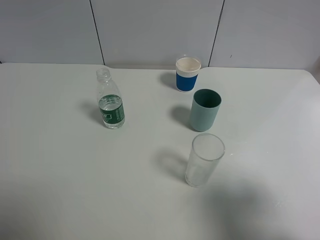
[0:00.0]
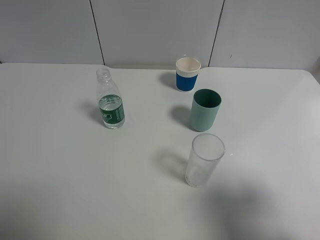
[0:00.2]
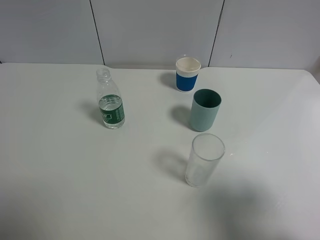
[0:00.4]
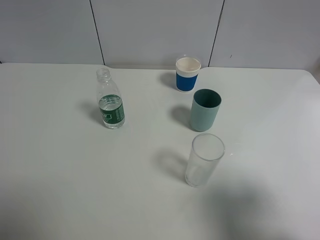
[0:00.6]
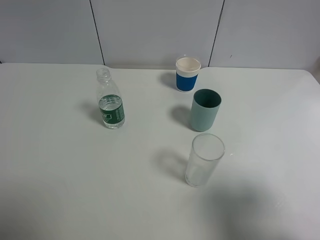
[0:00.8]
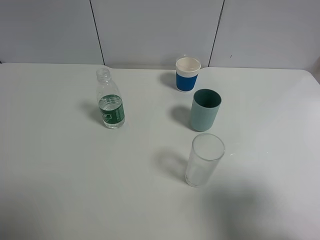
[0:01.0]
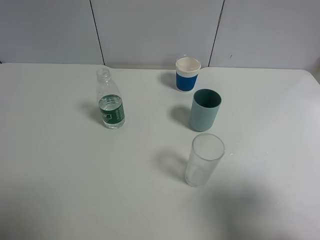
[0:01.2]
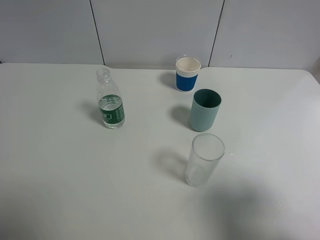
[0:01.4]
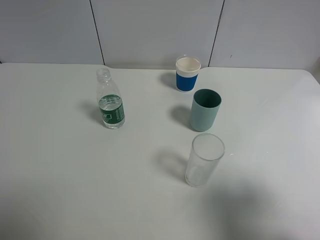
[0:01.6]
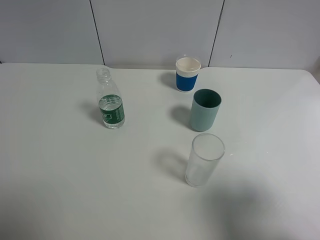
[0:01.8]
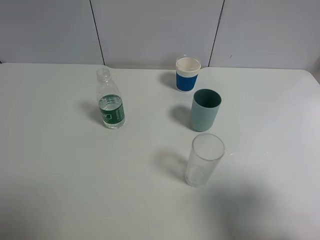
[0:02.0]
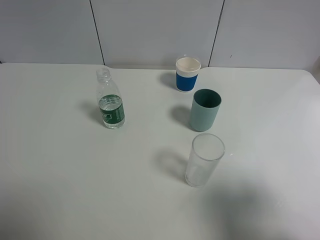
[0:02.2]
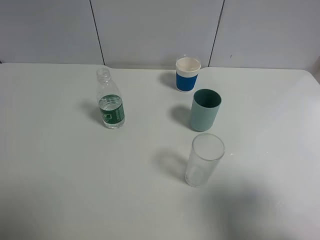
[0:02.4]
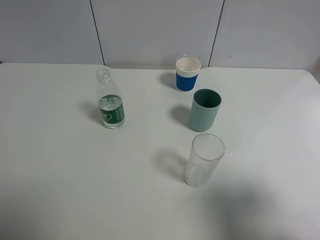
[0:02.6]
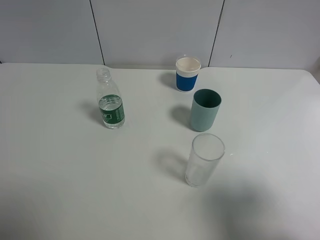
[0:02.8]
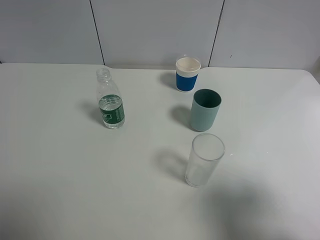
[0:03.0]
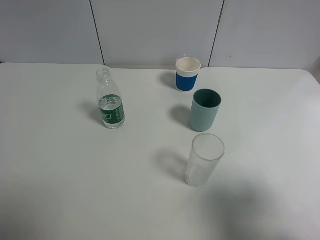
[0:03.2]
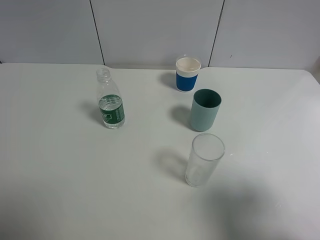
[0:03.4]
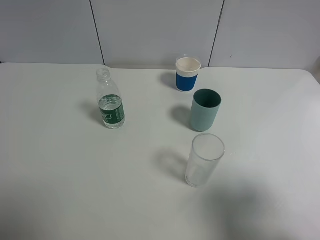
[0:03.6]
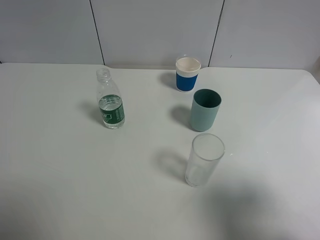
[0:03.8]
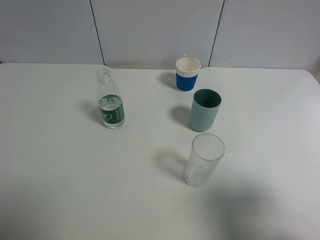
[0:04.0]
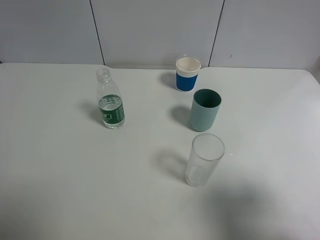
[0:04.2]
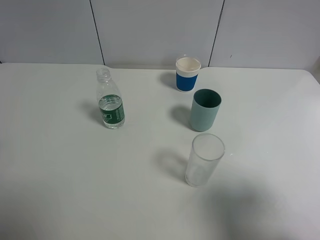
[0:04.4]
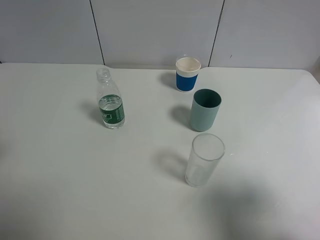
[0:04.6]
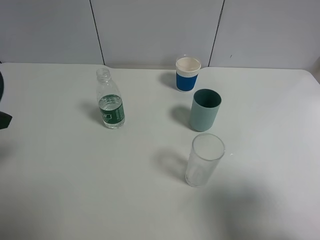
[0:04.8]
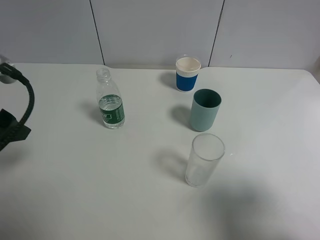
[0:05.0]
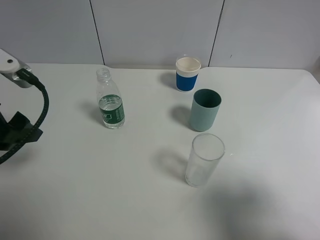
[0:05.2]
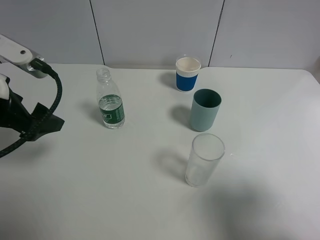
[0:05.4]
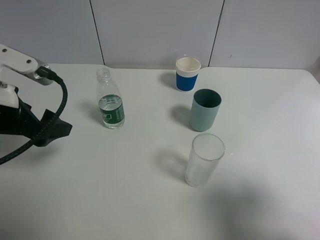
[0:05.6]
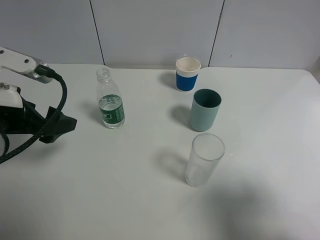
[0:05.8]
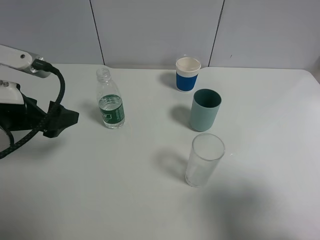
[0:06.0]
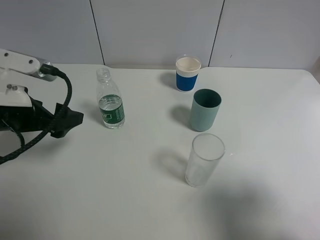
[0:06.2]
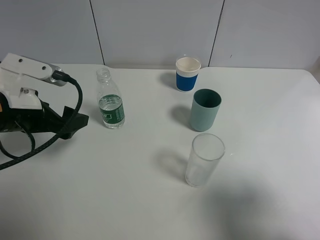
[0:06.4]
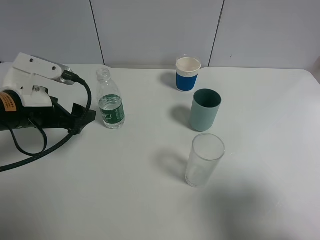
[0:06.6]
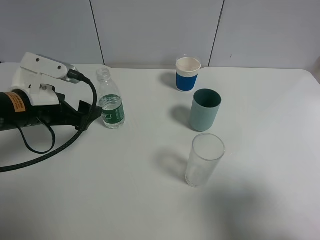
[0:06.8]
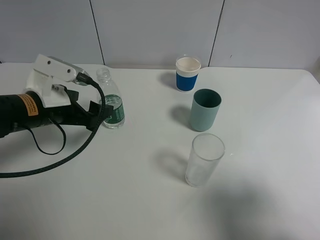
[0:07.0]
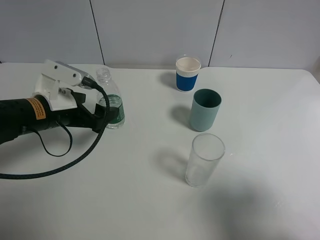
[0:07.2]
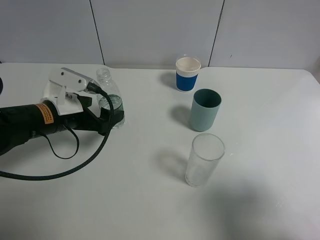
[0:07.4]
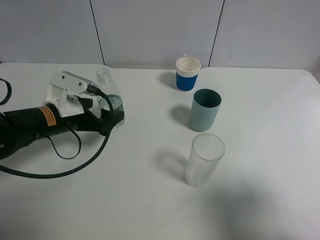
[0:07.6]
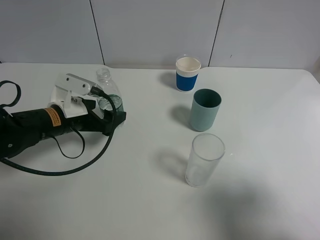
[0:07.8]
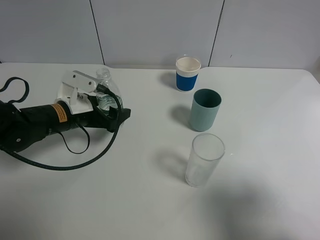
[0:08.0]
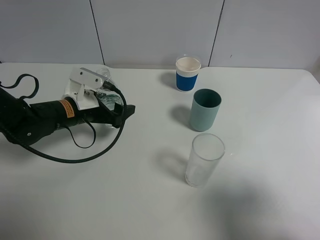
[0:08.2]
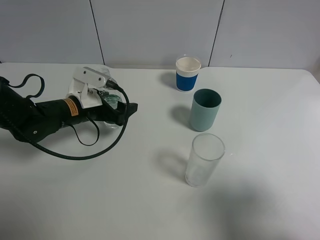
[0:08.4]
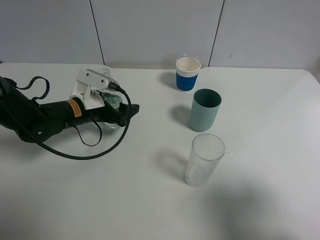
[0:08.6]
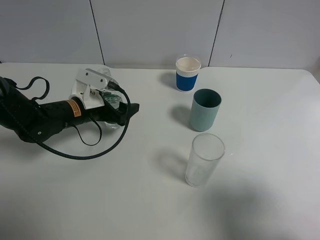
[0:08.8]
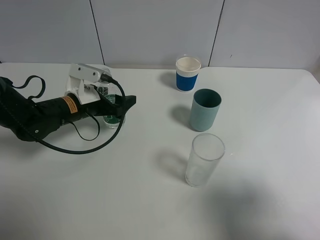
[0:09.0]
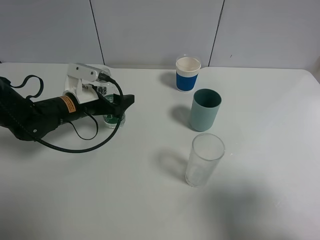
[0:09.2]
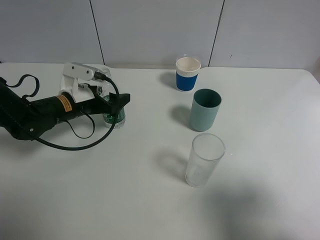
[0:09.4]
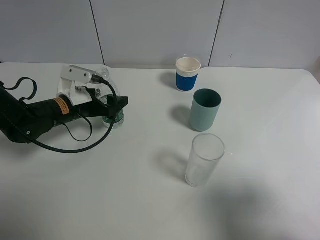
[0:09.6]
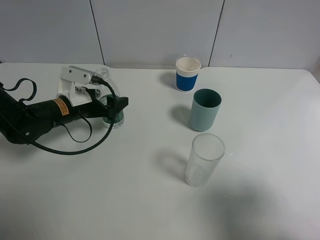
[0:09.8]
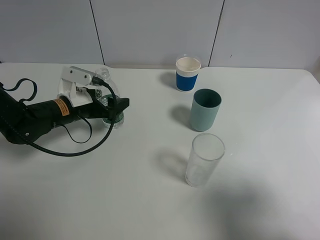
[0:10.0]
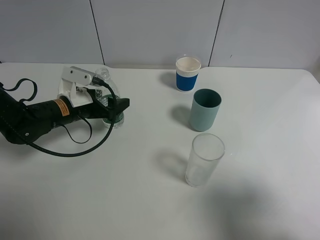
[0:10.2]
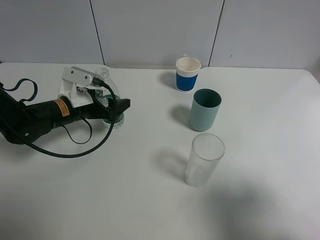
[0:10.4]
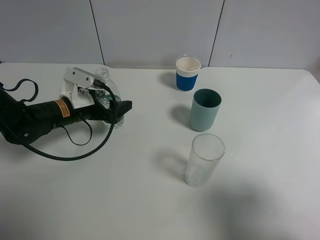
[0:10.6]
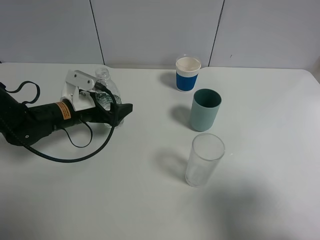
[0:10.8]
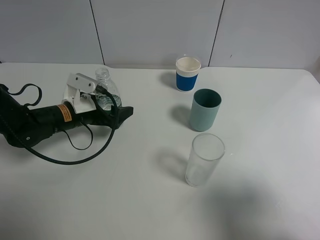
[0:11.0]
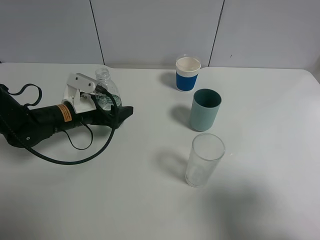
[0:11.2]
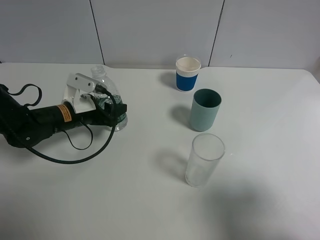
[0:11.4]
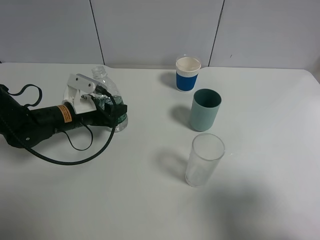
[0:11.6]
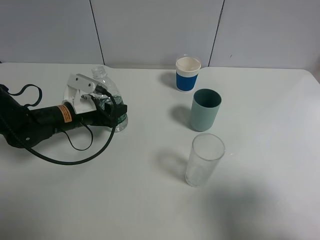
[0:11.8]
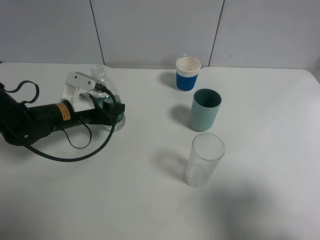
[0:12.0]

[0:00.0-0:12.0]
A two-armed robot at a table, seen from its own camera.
Task of the whole recording: use a gripper to hold the bottle of the drink and pour it into a random cup.
Step, 0:00.0 to 0:11.6: Grasp the mineral water bottle with the left gripper.
0:00.0 to 0:03.0: Both grippers stay about where they are.
0:04.4 to 0:06.0: The left gripper travels downward, forward and to the right by about 15 cm.
0:06.0 to 0:07.6: The left gripper travels downward and forward by some 10 cm.
0:07.6 to 0:09.0: The left gripper moves forward, about 5 cm.
0:09.0 to 0:10.4: There are only small adjustments of the grippers.
0:10.4 to 0:12.0: The left gripper closes.

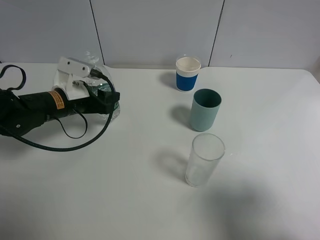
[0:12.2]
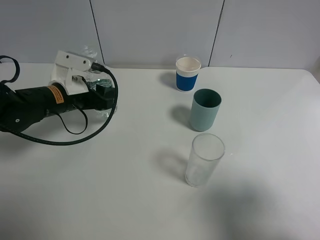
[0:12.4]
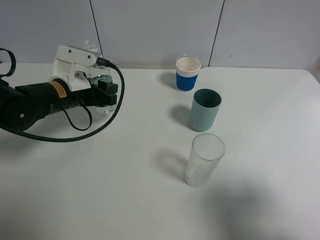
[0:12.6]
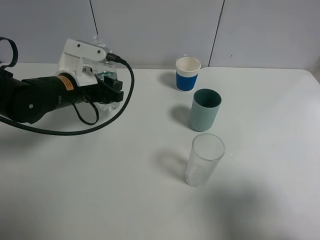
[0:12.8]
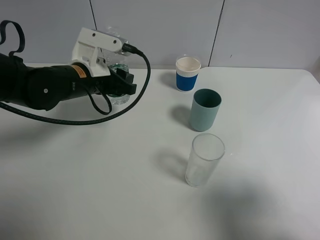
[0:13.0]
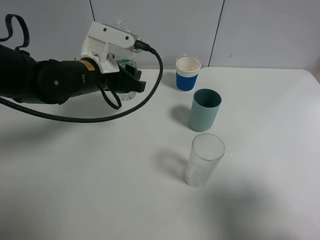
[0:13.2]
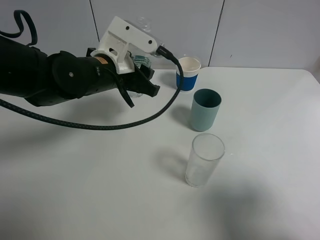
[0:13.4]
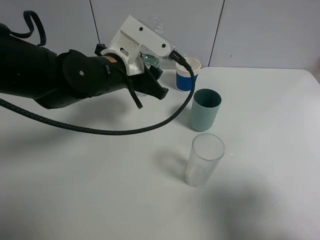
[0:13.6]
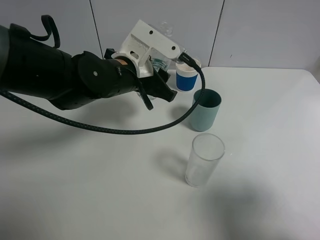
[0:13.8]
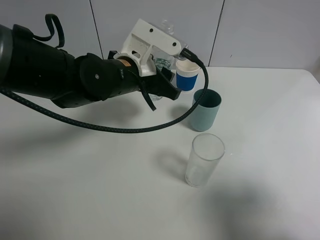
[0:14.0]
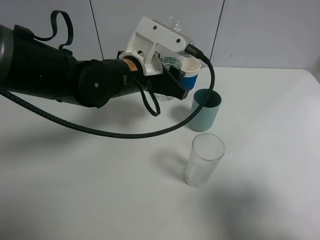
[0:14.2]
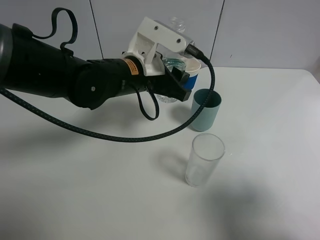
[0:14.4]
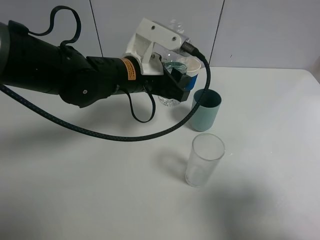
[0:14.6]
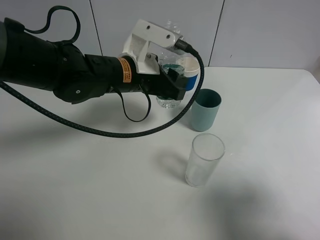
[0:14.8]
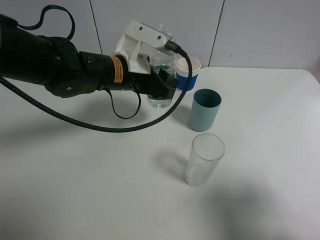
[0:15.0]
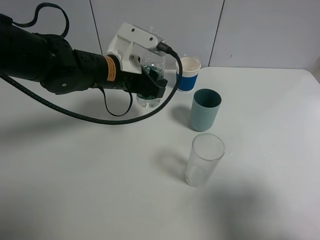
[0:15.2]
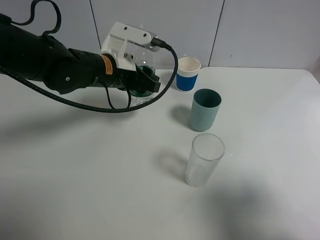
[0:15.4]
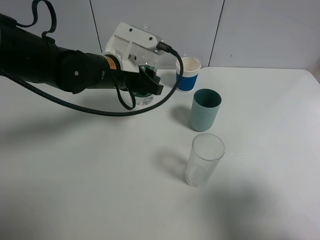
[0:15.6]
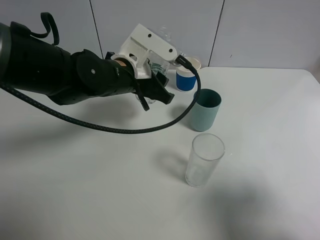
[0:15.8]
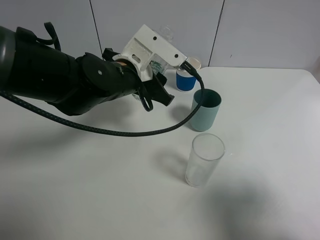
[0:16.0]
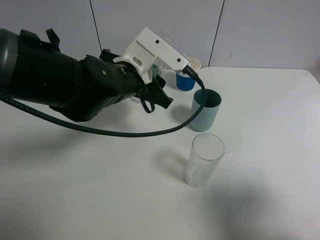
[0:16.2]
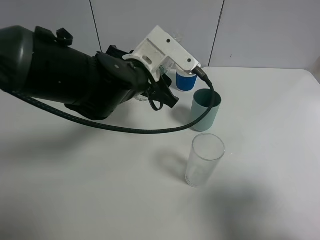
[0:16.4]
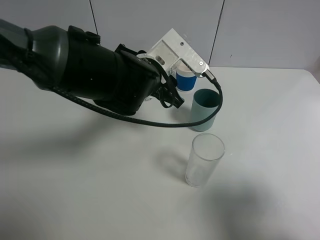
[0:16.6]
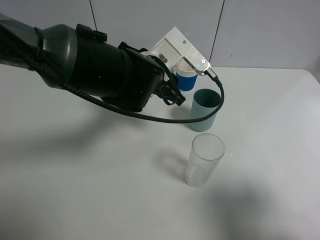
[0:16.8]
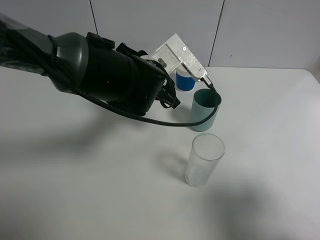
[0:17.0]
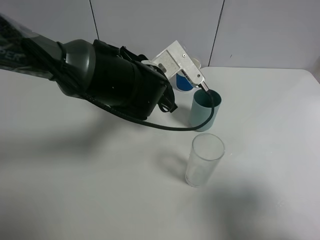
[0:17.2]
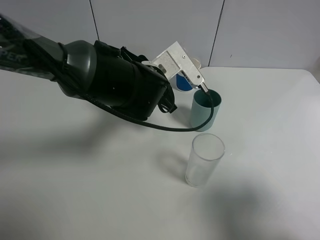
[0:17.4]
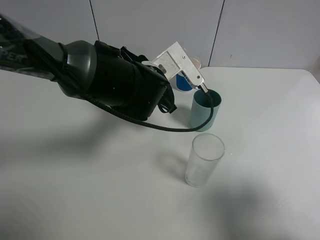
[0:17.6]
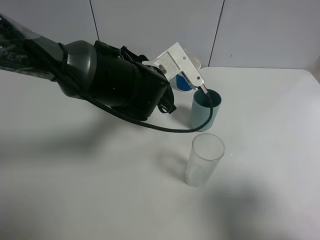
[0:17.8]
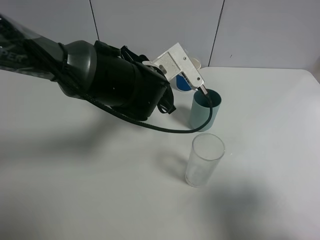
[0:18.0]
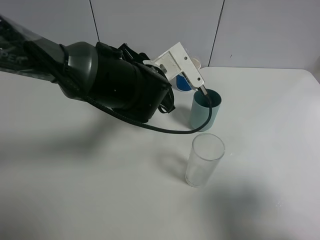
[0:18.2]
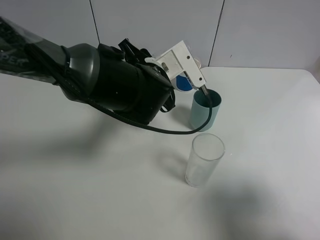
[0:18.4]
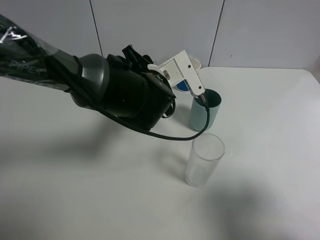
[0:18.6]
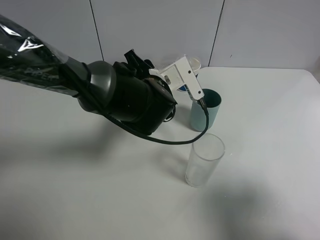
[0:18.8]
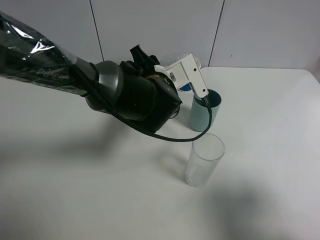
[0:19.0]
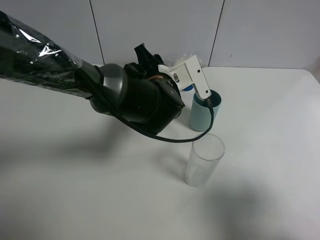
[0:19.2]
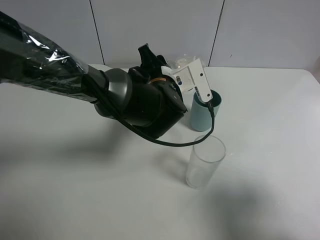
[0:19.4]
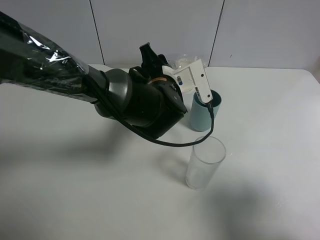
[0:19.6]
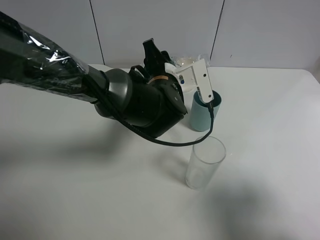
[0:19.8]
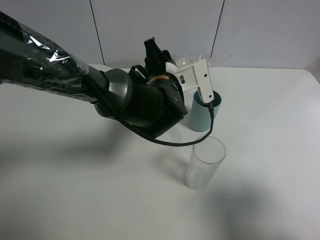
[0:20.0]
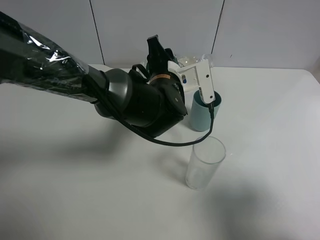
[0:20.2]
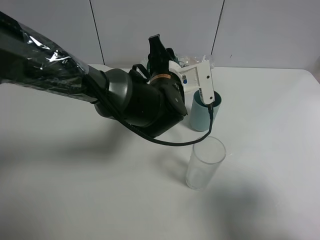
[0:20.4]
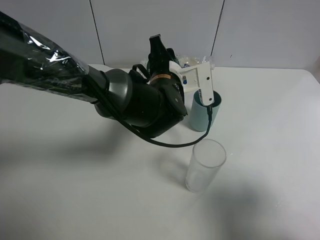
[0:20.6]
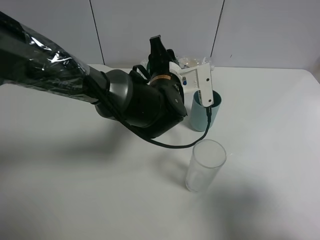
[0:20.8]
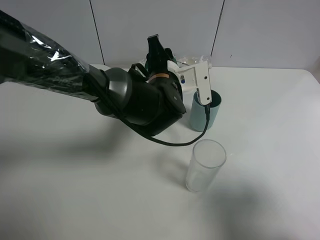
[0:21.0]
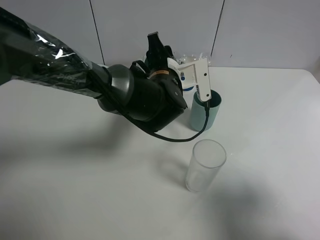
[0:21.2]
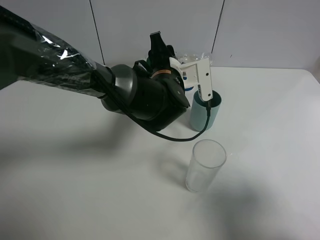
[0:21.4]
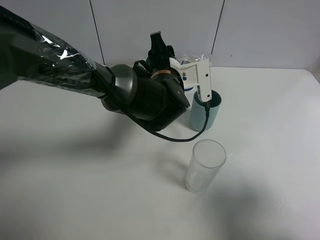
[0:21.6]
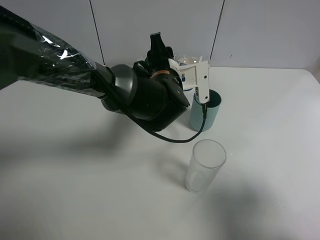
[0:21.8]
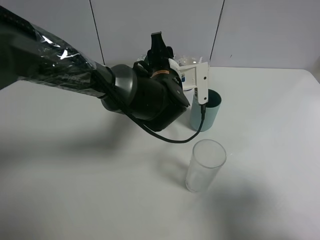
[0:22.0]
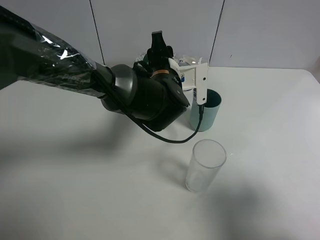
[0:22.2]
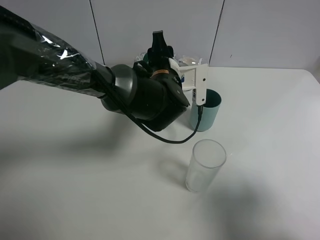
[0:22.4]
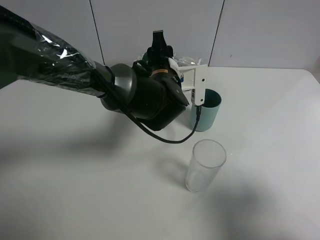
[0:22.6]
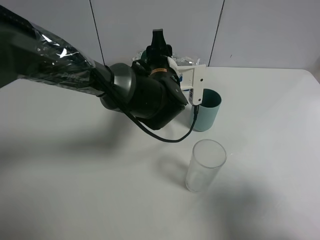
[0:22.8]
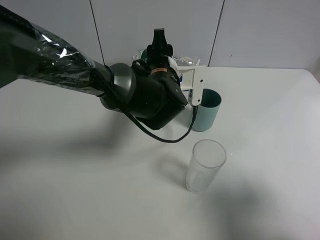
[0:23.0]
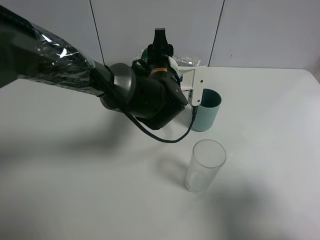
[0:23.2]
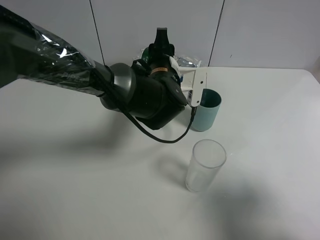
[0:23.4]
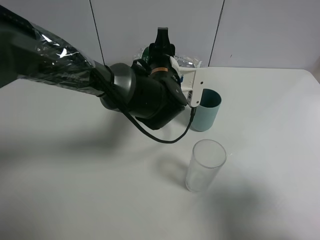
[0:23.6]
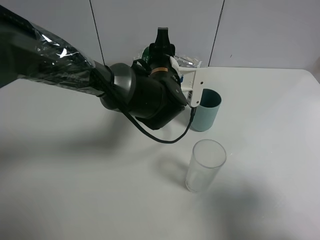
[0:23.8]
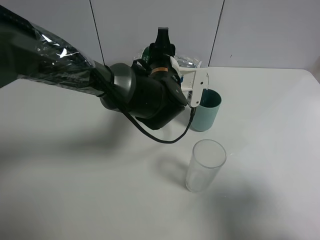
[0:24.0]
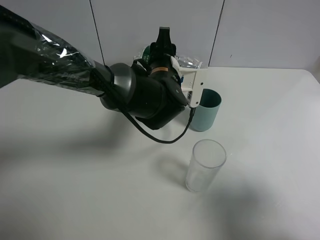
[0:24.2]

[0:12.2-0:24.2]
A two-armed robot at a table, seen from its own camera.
Task of the whole recording: use a gripper to hold the bottle of the drink and pour it into a random cup.
0:12.2 to 0:13.8: The left gripper travels to the right and upward by some 15 cm.
0:15.2 to 0:16.6: The left gripper moves to the right, some 5 cm.
0:16.6 to 0:18.2: The grippers move only a little.
0:19.8 to 0:22.6: There are only small adjustments of the grippers.
0:22.6 to 0:24.2: The grippers stay close to where they were, moving slightly.
